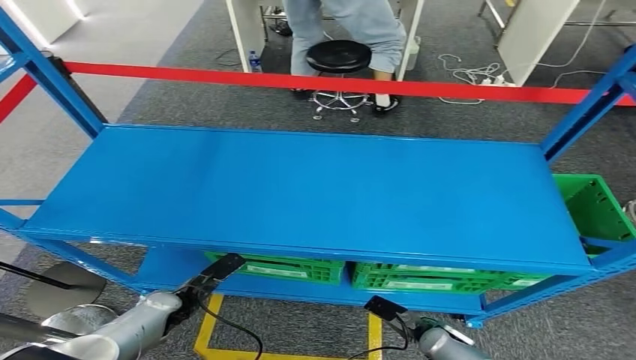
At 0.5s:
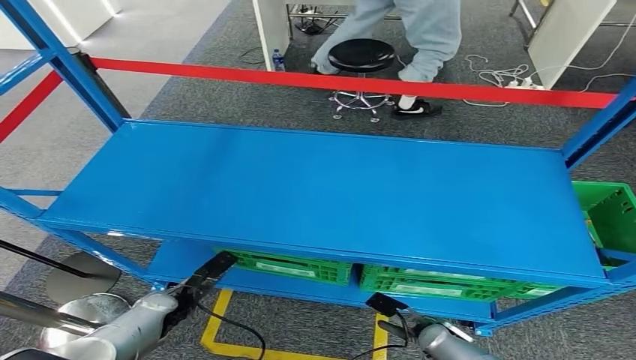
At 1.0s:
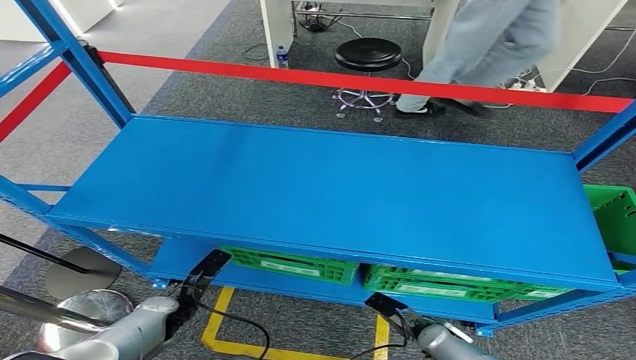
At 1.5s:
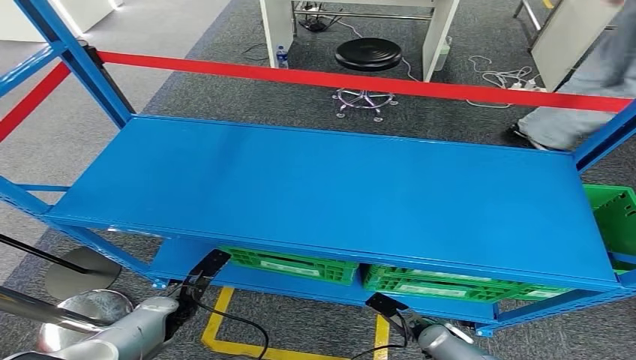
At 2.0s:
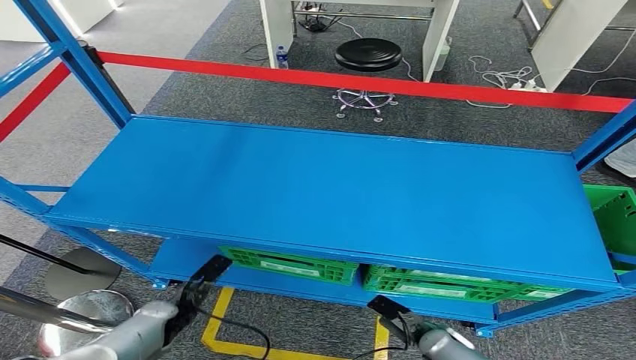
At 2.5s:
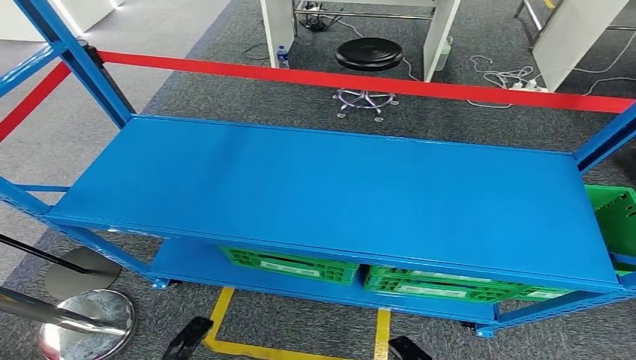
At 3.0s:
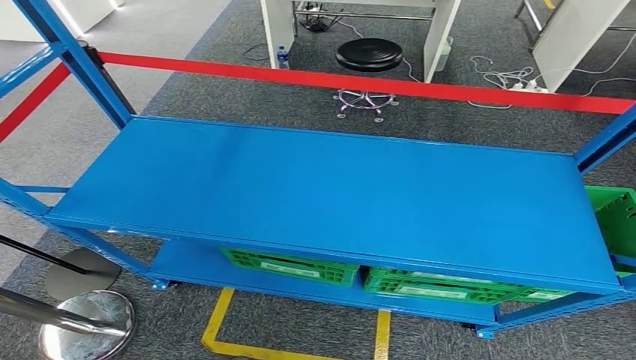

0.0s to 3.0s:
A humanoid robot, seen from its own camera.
Step, 0.0s to 3.0s: Return to the initial position at the workbench.
1.5s to 3.0s: The two hands go approximately 25 cm backward.
